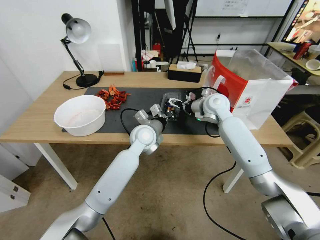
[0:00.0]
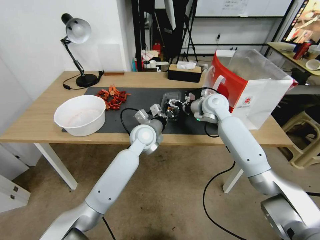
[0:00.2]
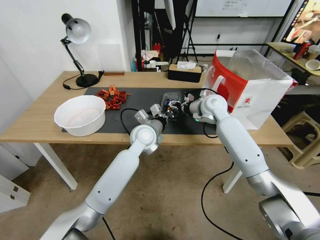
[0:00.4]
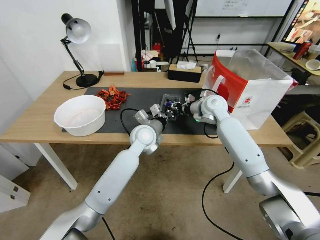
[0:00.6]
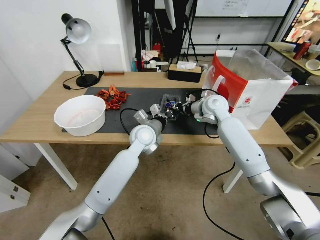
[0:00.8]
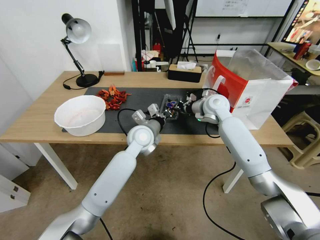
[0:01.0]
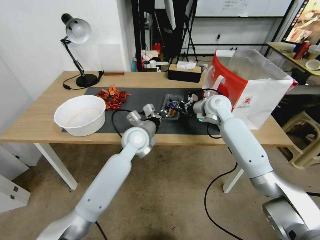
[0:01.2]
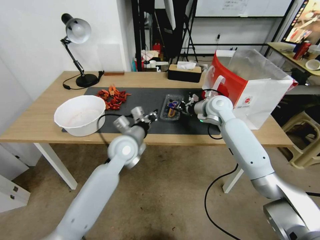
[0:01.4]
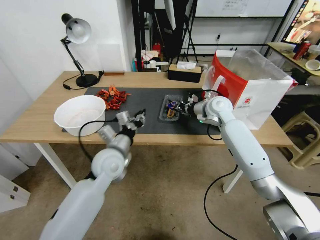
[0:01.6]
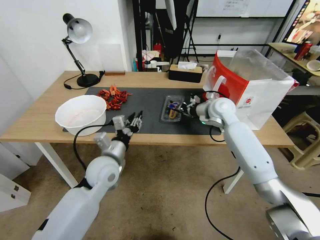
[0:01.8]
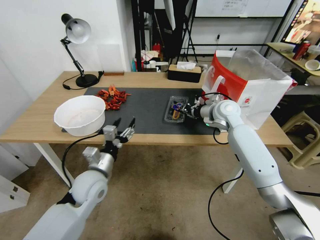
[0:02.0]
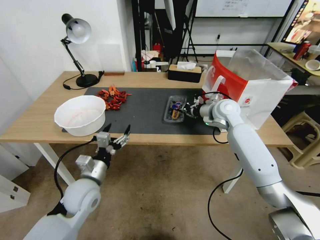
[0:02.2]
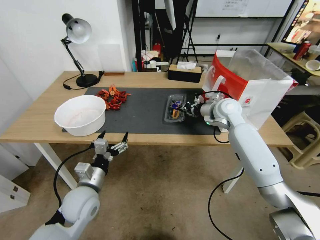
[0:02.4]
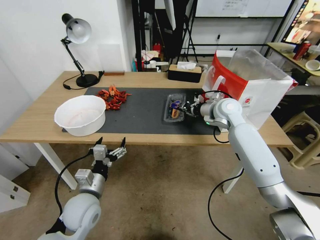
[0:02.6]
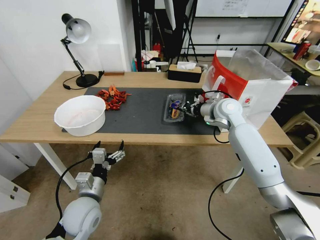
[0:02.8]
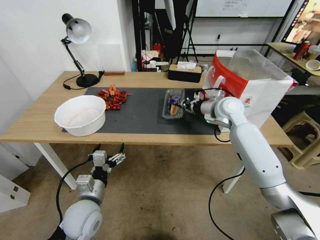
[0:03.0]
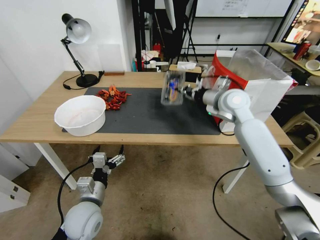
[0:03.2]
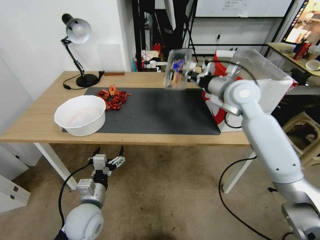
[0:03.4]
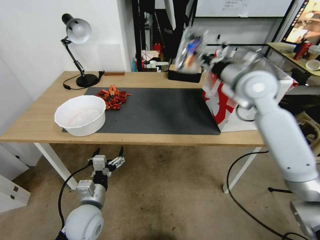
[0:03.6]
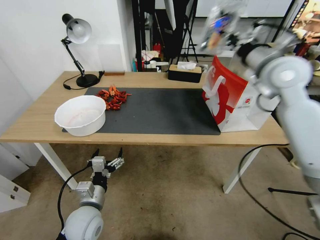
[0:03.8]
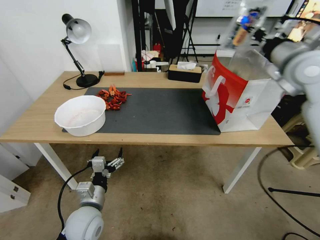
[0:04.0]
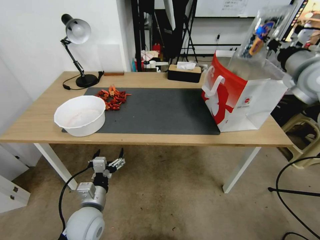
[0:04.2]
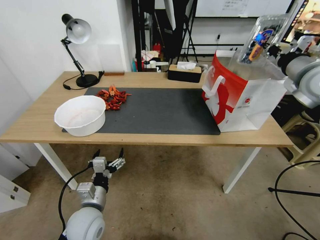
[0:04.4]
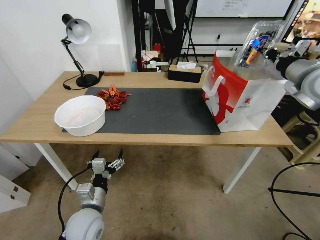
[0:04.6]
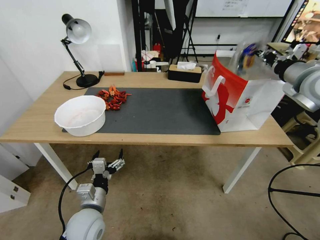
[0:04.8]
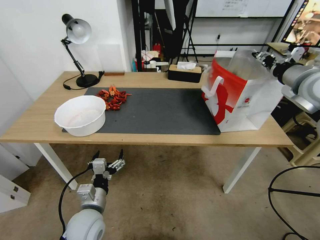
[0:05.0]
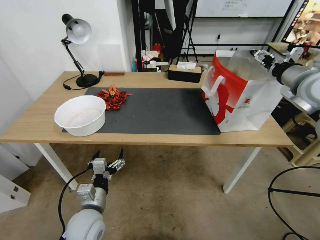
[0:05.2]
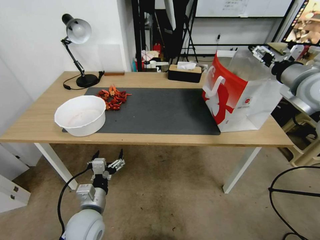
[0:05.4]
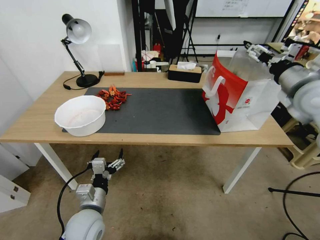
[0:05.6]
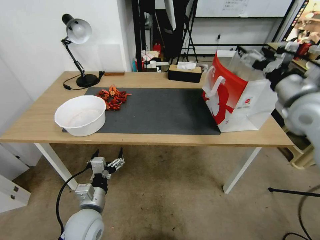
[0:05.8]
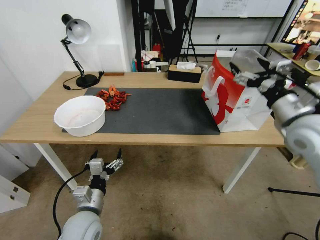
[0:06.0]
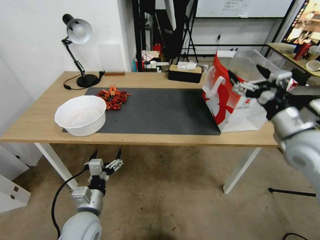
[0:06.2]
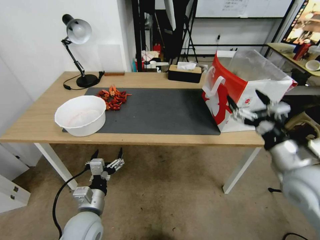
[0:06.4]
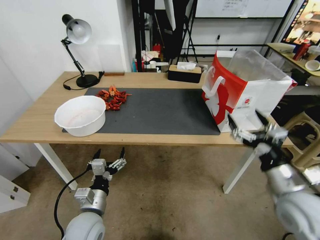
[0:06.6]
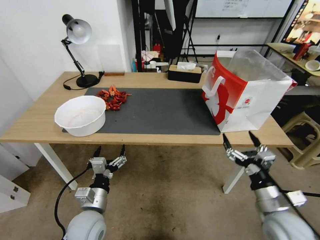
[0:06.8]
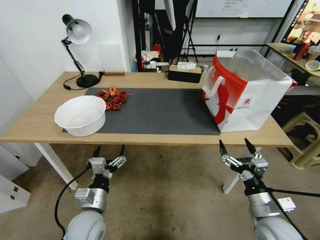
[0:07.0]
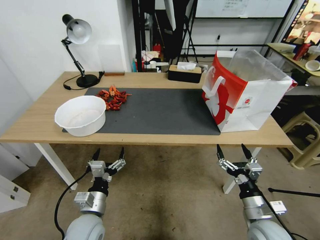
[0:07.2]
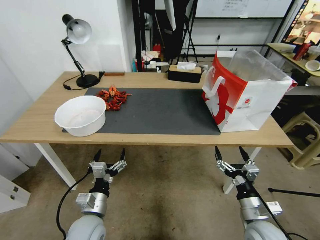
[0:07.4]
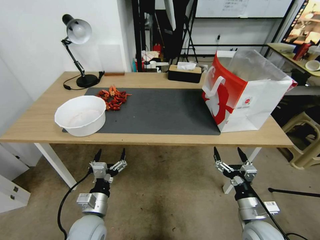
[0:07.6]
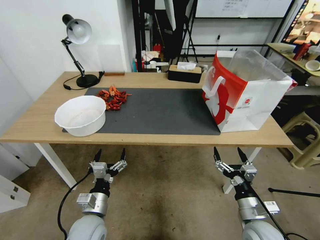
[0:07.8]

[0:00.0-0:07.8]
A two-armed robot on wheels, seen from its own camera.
Task of the whole recording: Close the takeout container lid, then place the container into the takeout bag.
0:00.0 to 0:01.6: The right gripper closes its fingers; the left gripper heads to the left and backward, covering roughly 15 cm.
0:01.6 to 0:03.2: The right gripper moves upward, approximately 5 cm. The left gripper goes roughly 20 cm backward, downward and to the left, and opens up.
0:03.2 to 0:04.6: The right gripper is displaced to the right, upward and backward by roughly 20 cm.
0:04.6 to 0:06.2: The right gripper goes some 15 cm backward, downward and to the left, and opens.
0:06.2 to 0:07.8: The right gripper shifts approximately 30 cm downward and backward.
